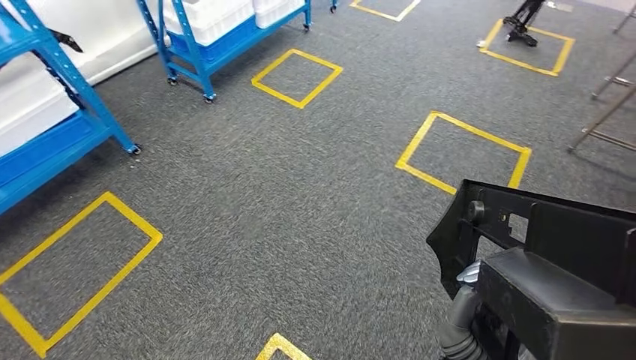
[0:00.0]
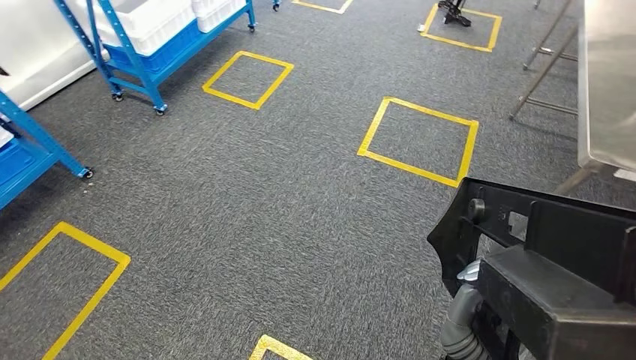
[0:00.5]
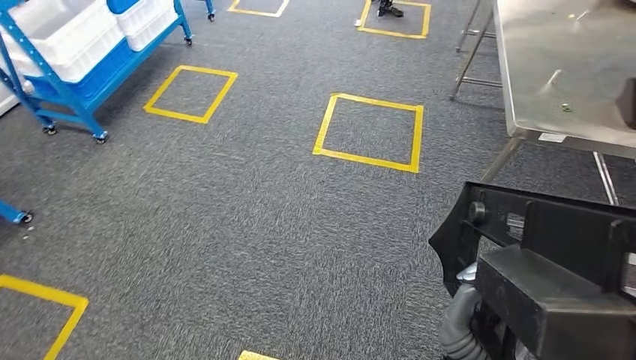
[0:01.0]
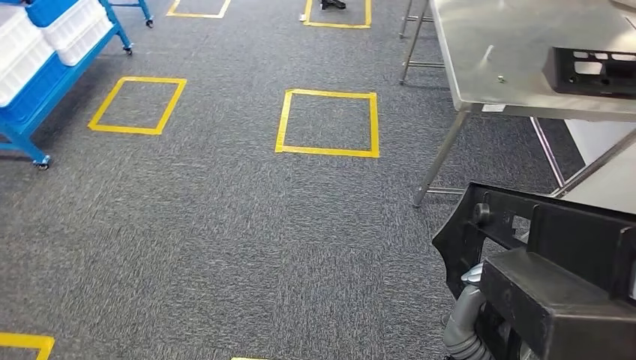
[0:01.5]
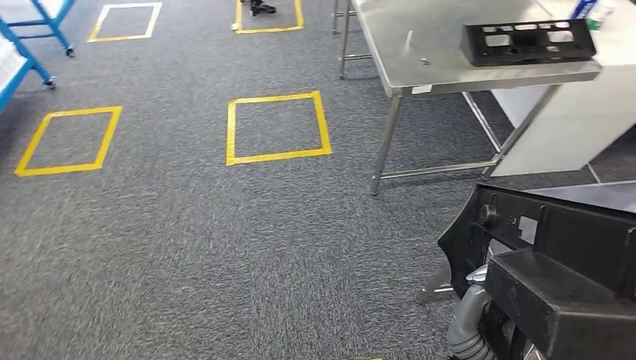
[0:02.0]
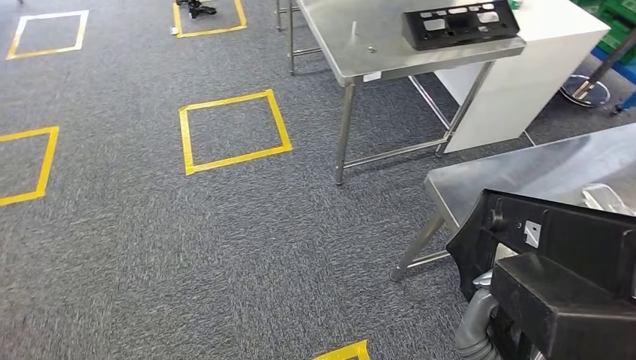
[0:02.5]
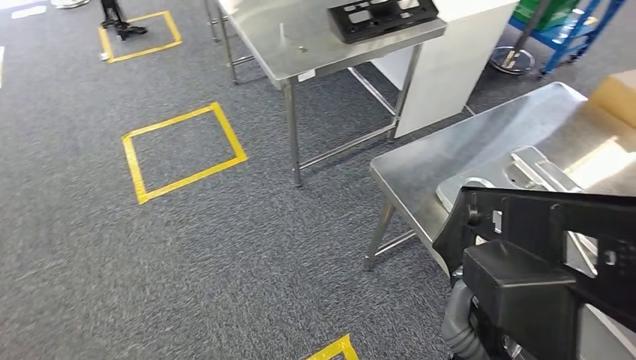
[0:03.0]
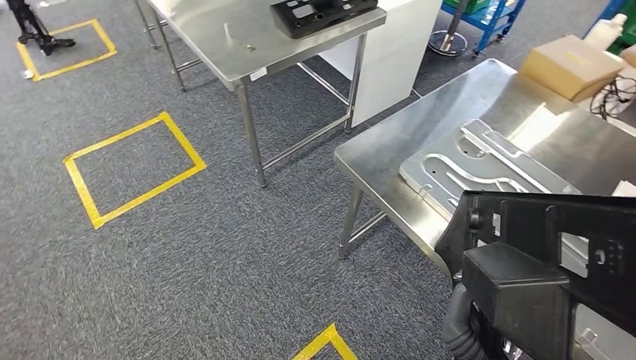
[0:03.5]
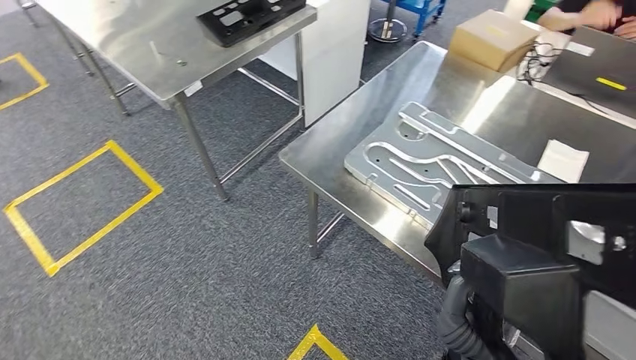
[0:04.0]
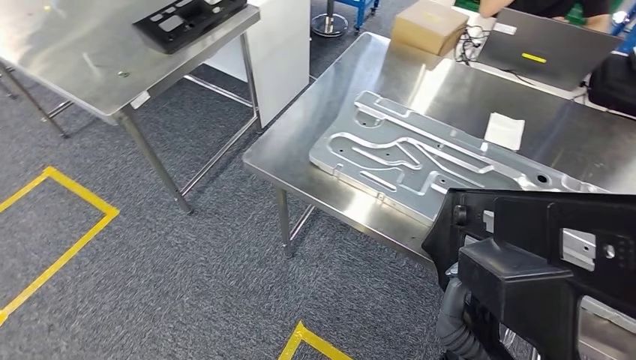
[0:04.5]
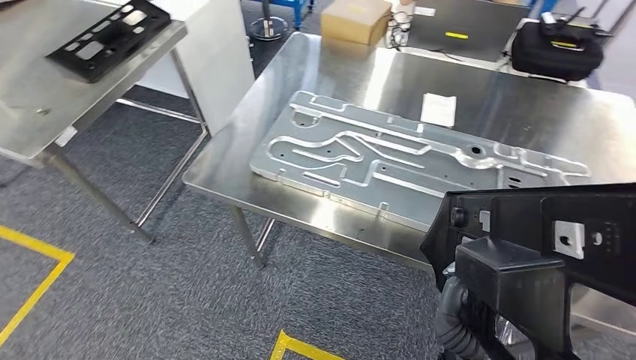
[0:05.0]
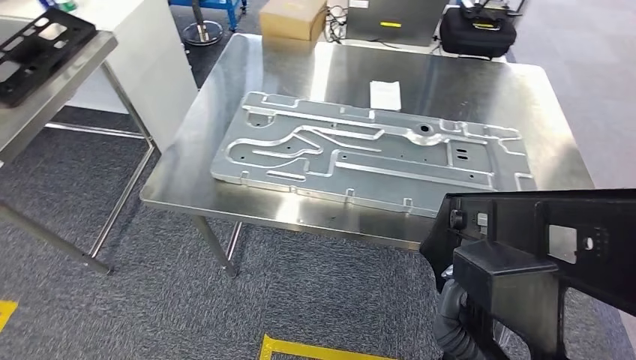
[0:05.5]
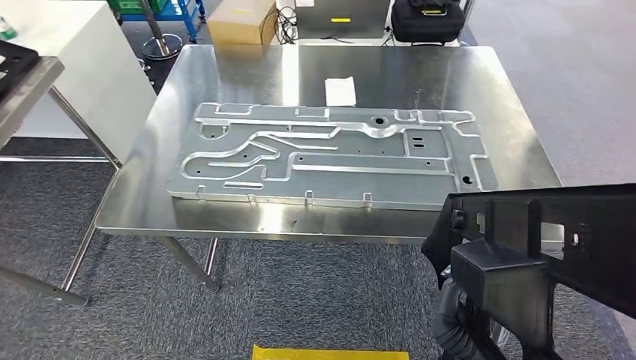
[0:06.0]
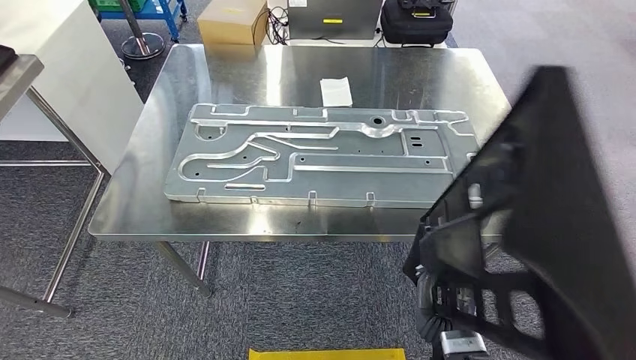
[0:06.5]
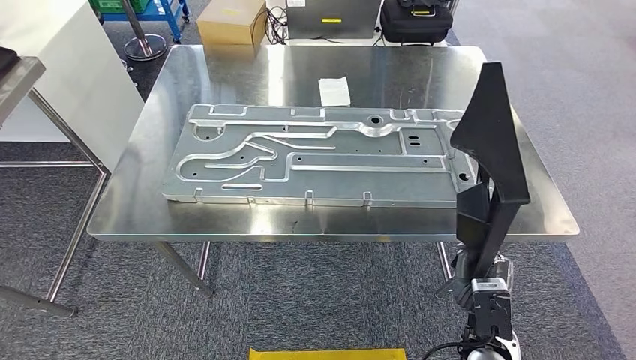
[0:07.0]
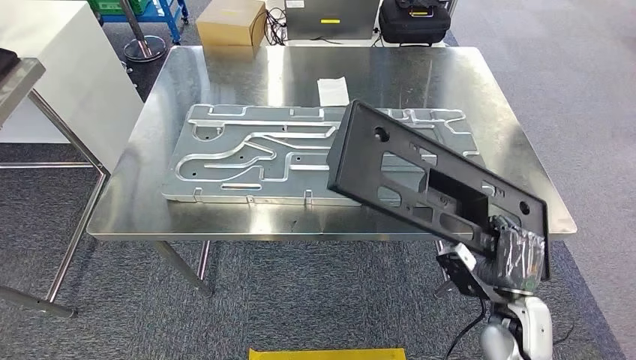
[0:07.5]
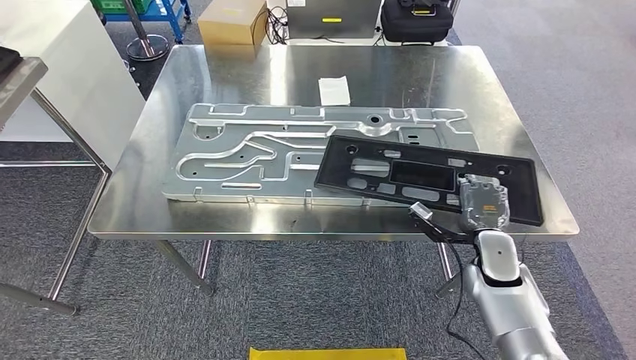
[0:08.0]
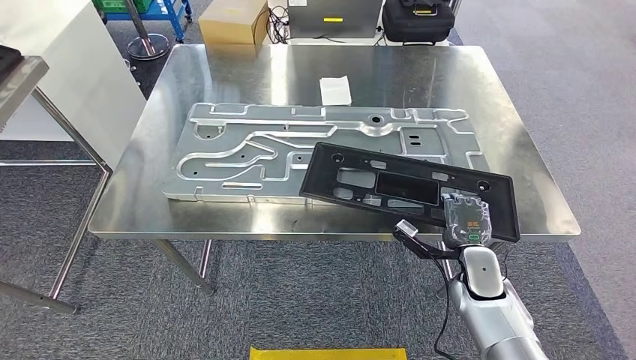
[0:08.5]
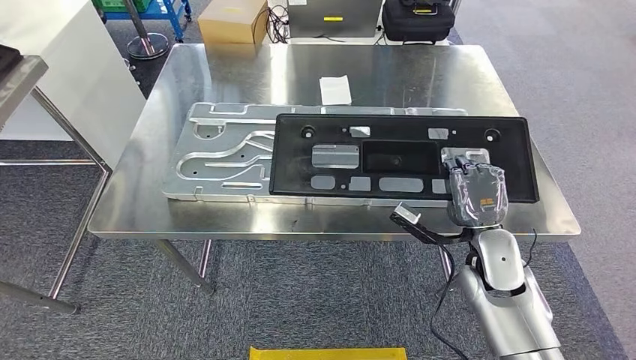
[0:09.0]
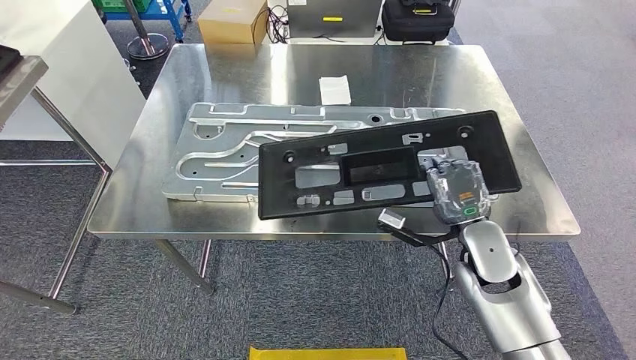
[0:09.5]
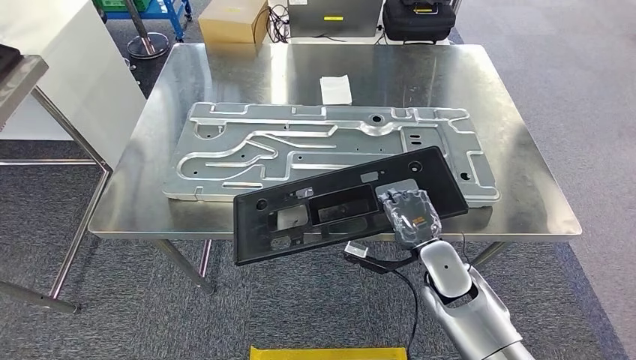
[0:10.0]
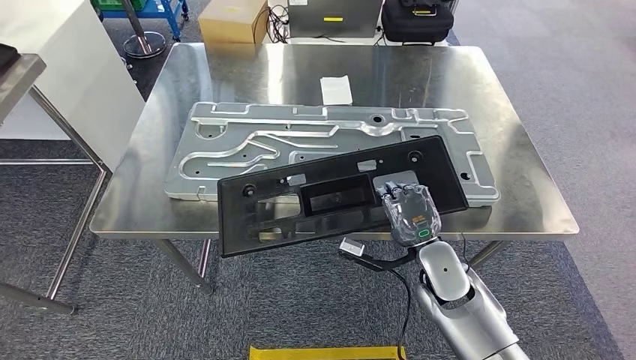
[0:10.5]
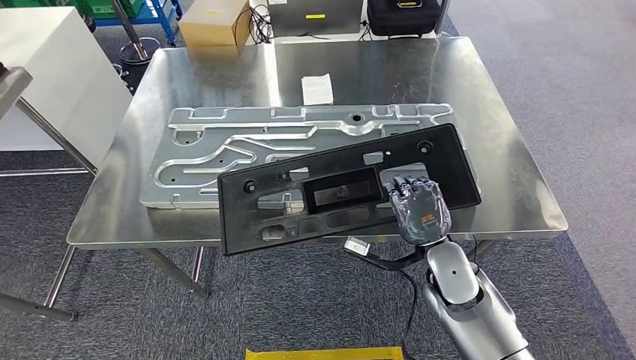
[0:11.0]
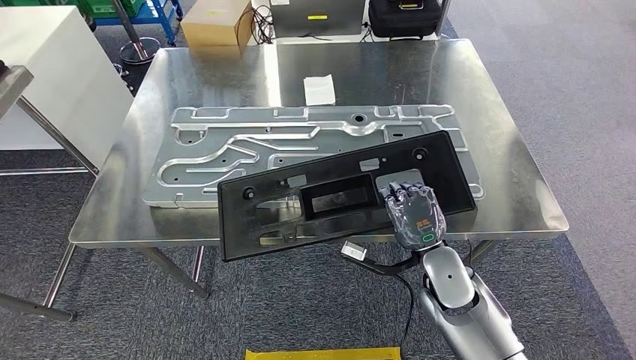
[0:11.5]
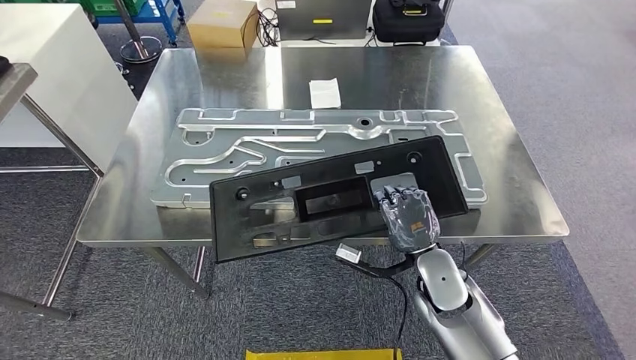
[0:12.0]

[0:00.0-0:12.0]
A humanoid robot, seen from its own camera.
Step, 0:00.0 to 0:06.5: Move the large material to the workbench.
0:08.0 to 0:10.0: The right hand heads to the left, covering approximately 10 cm.

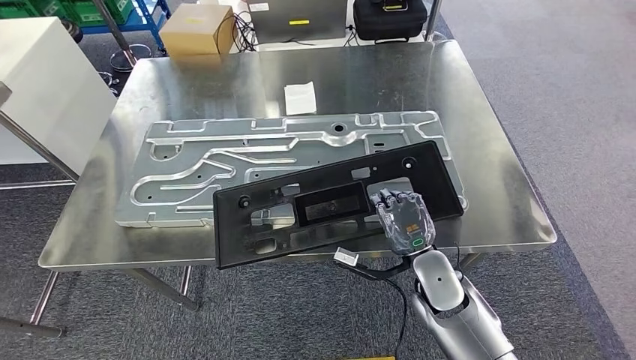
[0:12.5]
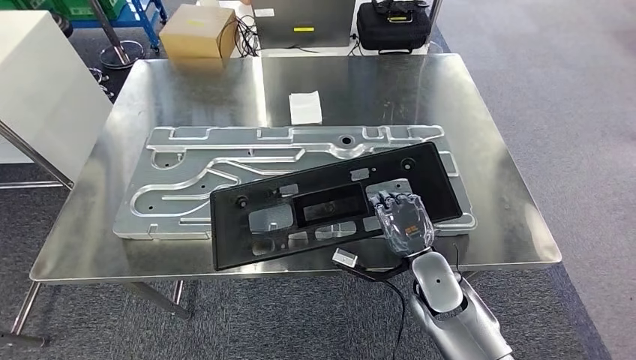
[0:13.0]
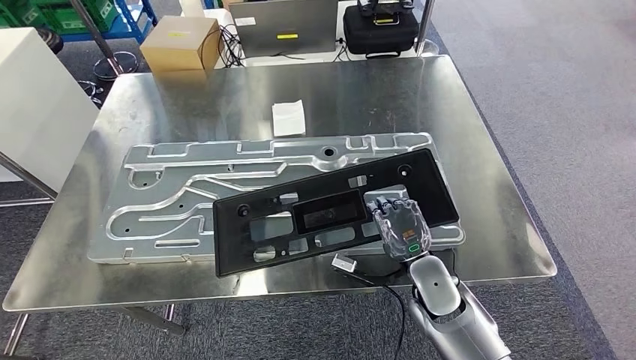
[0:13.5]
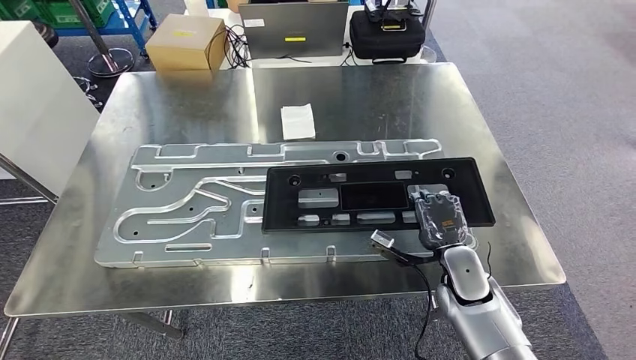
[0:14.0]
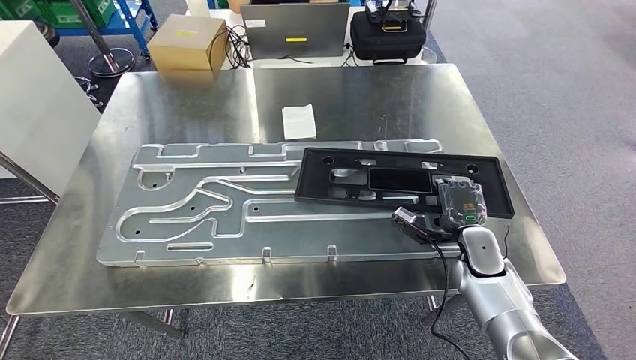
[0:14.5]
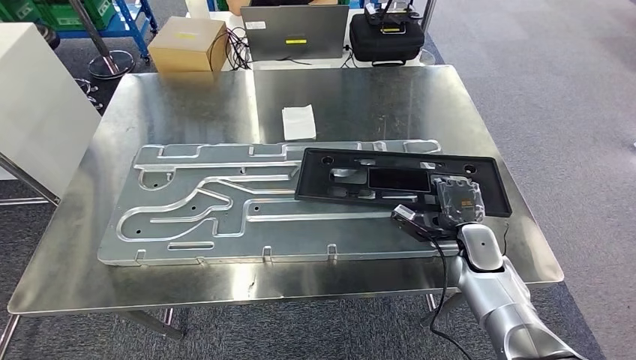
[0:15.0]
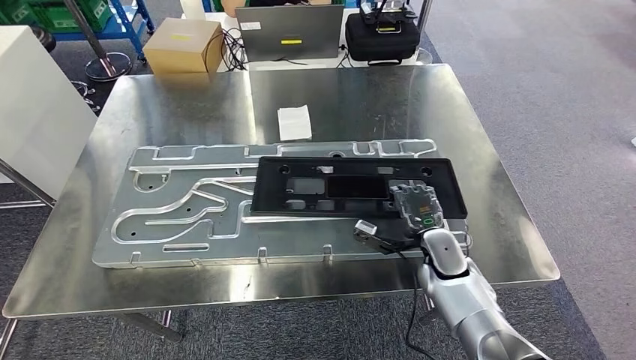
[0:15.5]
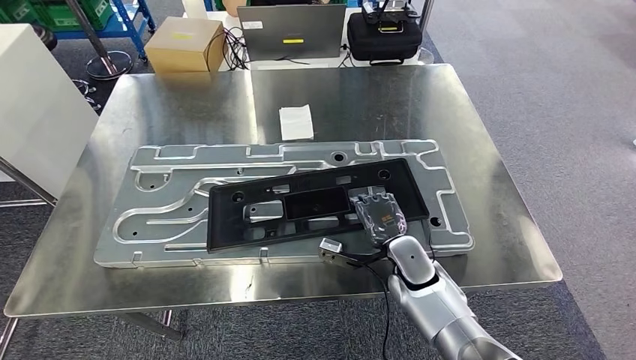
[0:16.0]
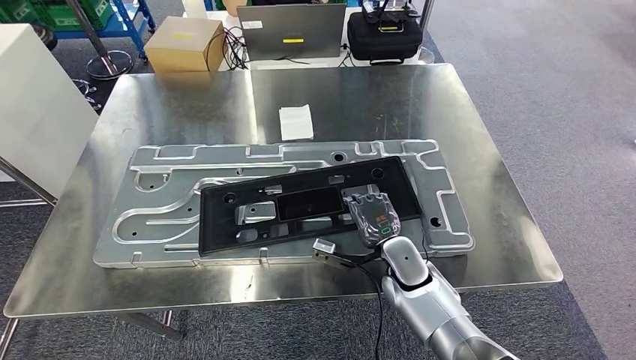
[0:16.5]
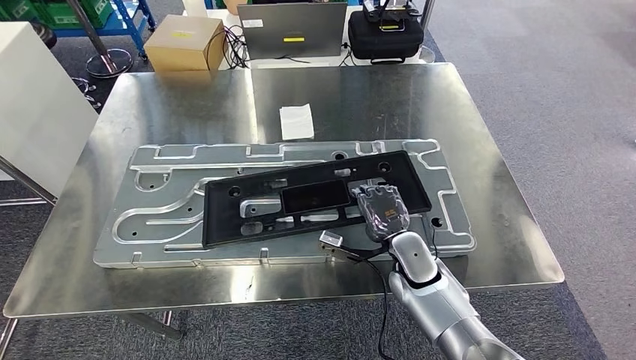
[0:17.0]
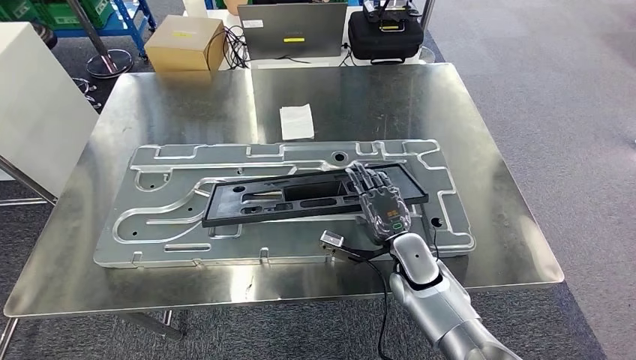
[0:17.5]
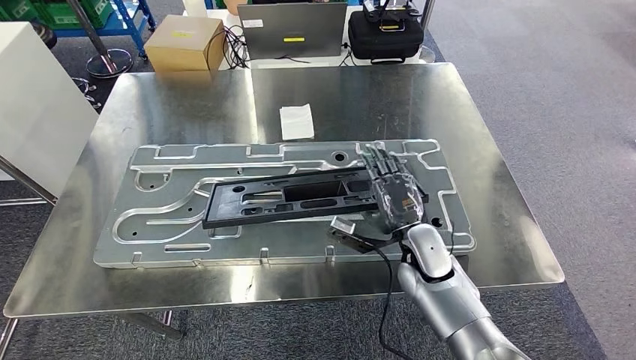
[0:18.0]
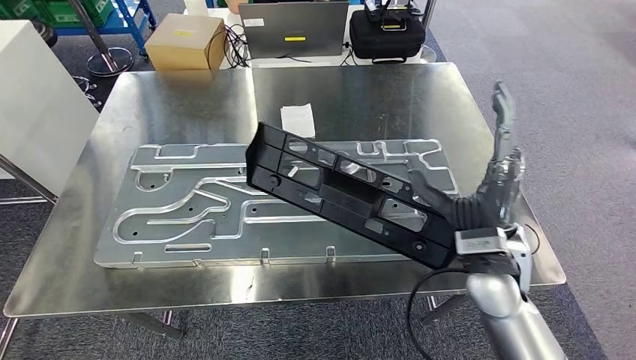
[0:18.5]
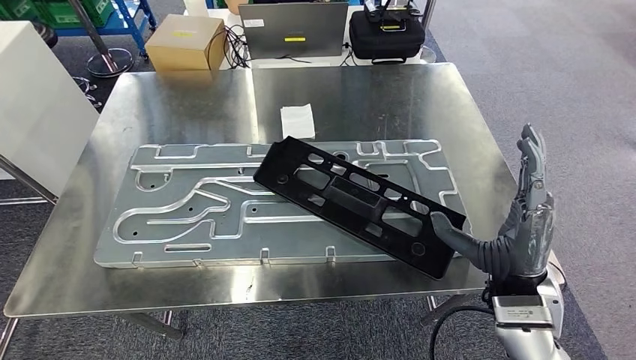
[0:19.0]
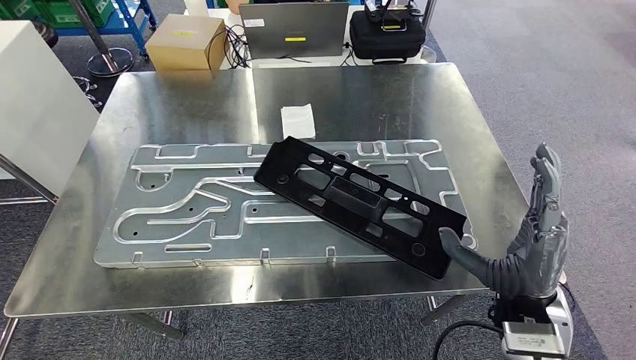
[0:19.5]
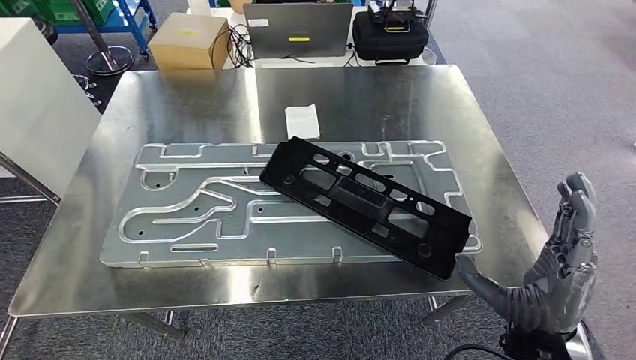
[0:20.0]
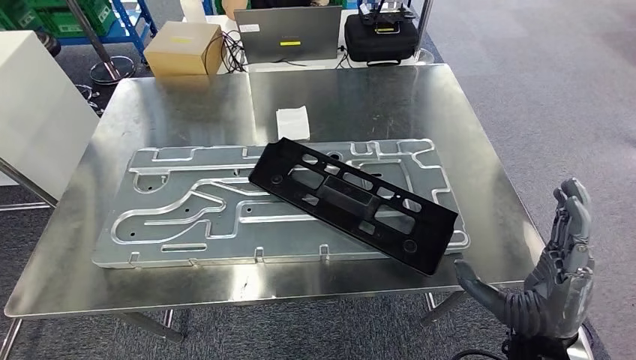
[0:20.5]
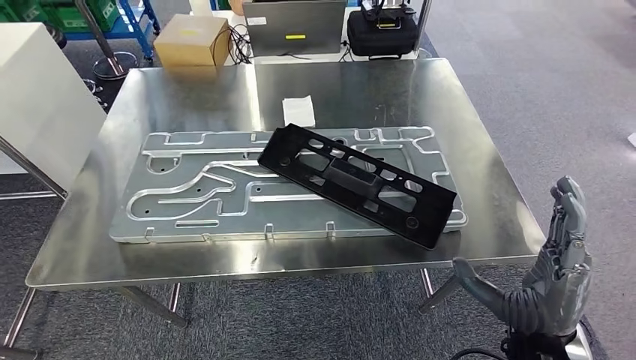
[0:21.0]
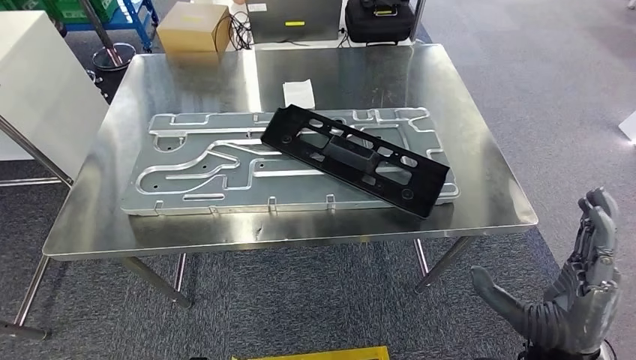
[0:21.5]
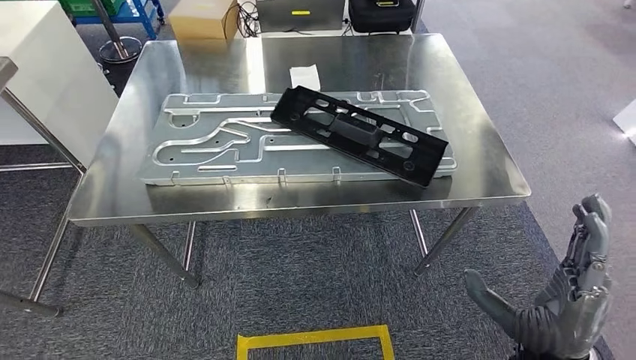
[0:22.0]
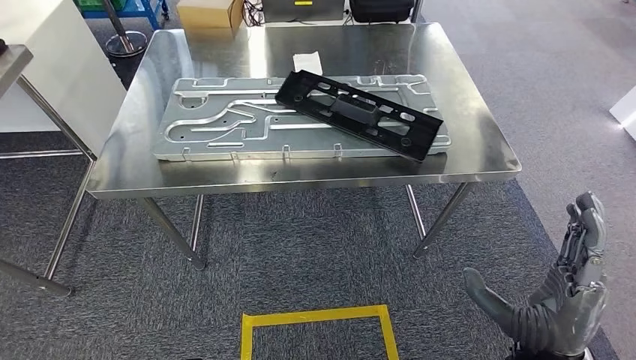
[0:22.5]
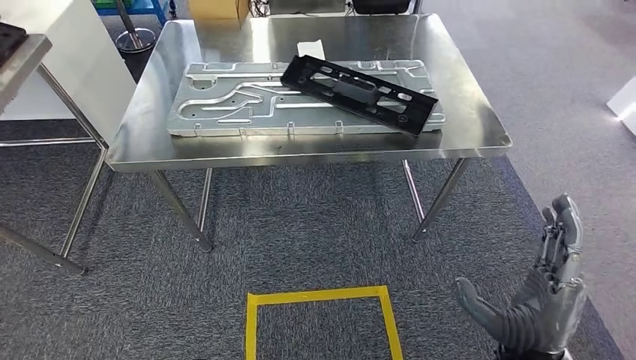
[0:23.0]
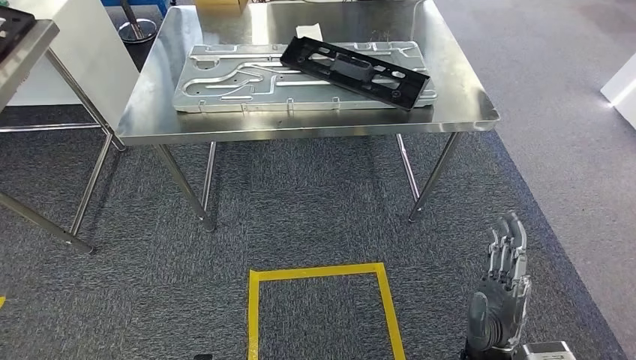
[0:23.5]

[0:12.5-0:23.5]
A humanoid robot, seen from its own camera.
Step, 0:12.5 to 0:23.0: Insert the large material into the corresponding slot on the workbench.
0:16.0 to 0:18.0: The left hand moves to the right, about 5 cm.
